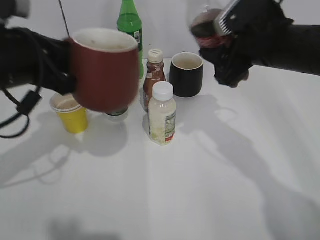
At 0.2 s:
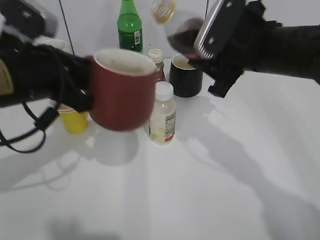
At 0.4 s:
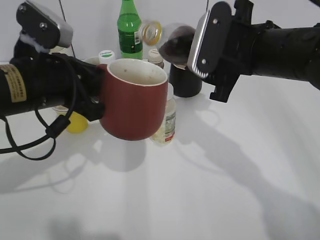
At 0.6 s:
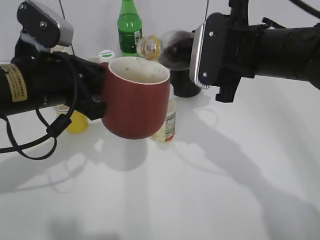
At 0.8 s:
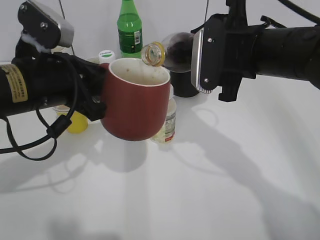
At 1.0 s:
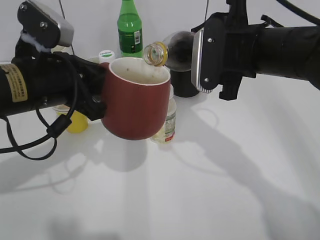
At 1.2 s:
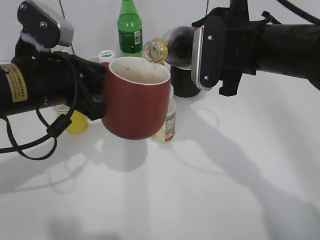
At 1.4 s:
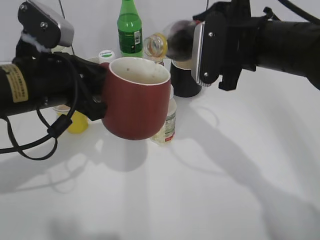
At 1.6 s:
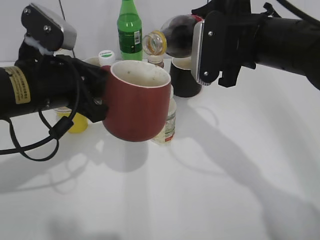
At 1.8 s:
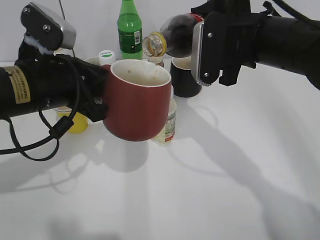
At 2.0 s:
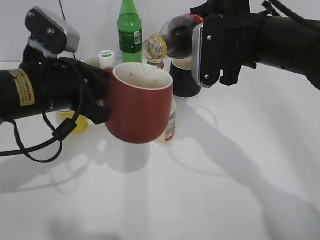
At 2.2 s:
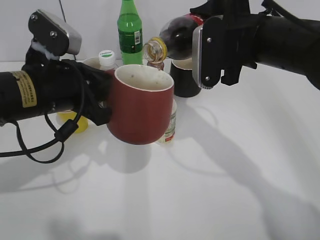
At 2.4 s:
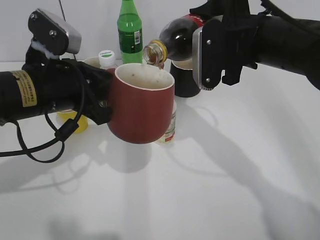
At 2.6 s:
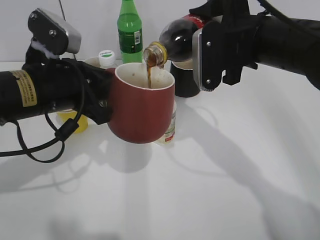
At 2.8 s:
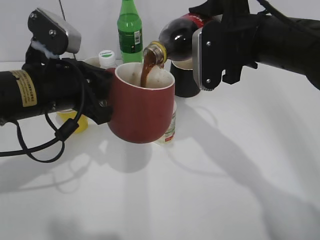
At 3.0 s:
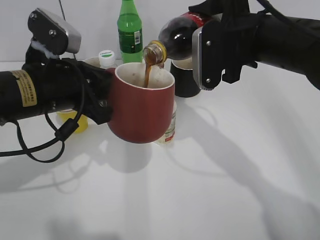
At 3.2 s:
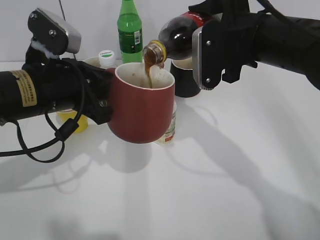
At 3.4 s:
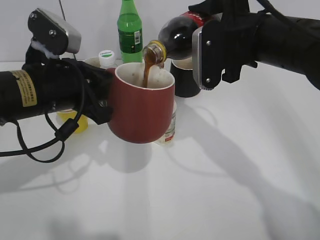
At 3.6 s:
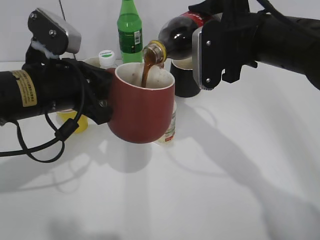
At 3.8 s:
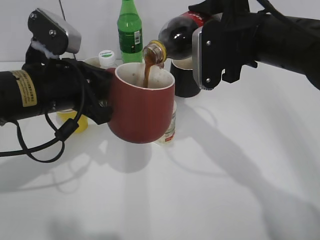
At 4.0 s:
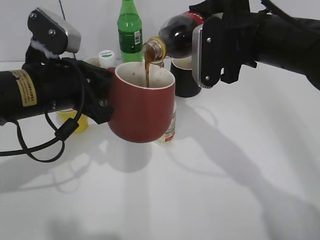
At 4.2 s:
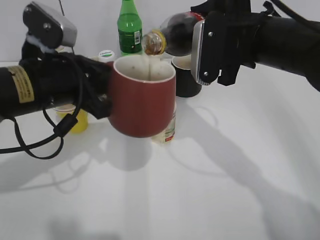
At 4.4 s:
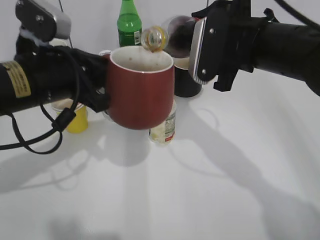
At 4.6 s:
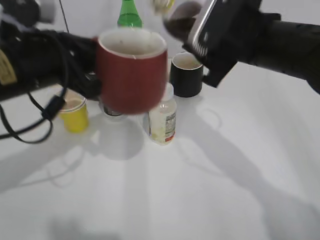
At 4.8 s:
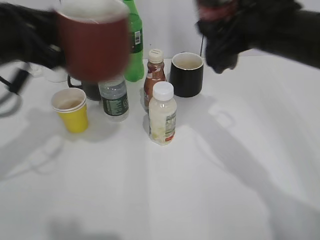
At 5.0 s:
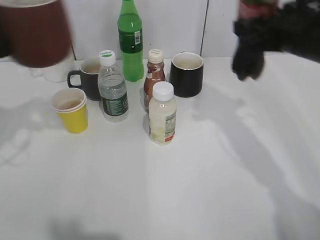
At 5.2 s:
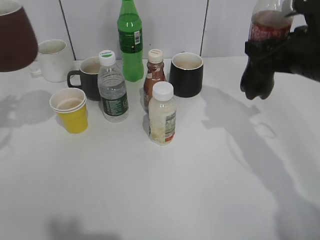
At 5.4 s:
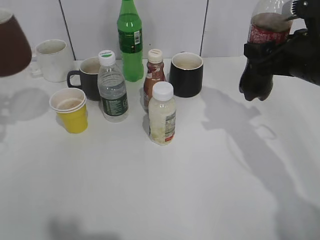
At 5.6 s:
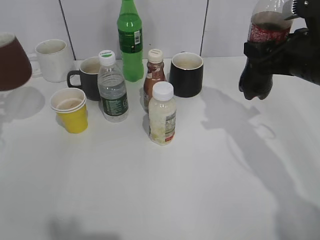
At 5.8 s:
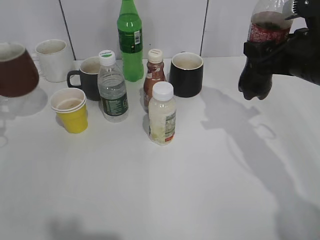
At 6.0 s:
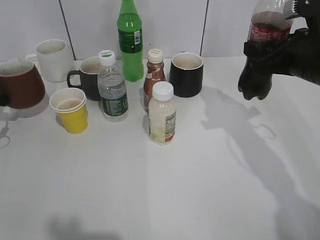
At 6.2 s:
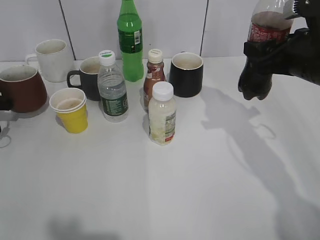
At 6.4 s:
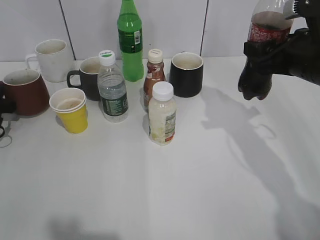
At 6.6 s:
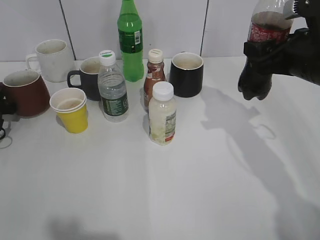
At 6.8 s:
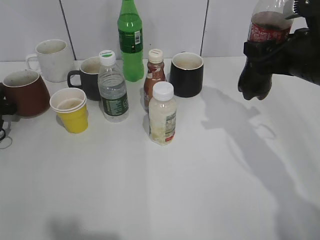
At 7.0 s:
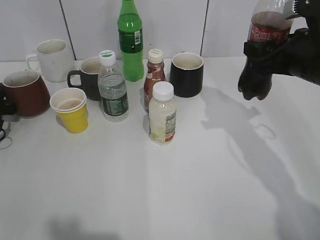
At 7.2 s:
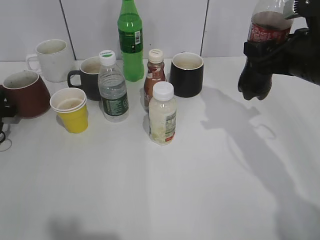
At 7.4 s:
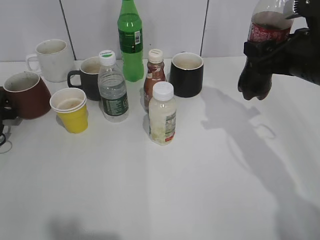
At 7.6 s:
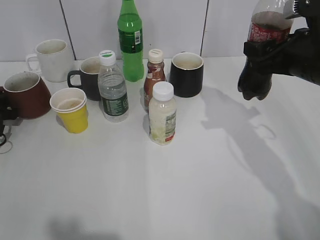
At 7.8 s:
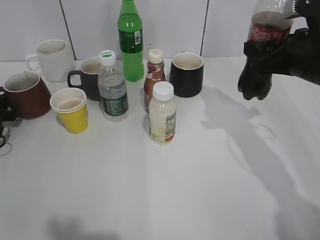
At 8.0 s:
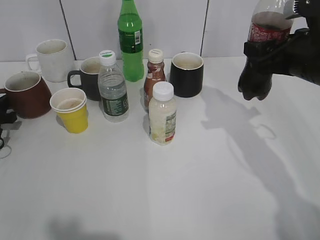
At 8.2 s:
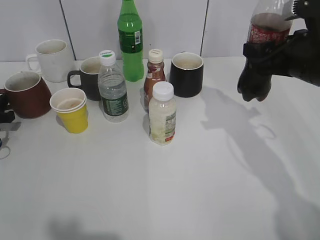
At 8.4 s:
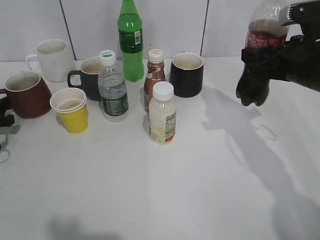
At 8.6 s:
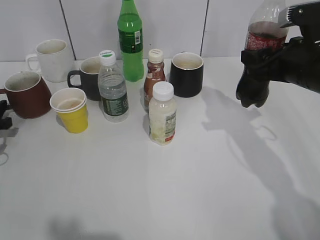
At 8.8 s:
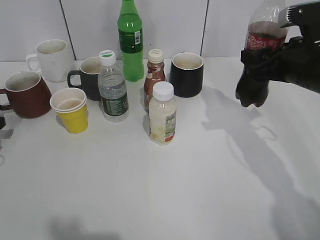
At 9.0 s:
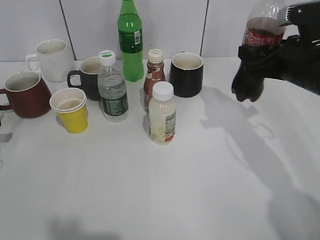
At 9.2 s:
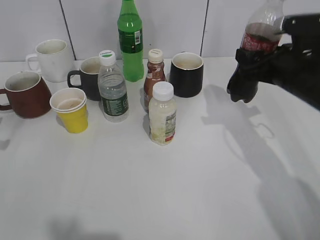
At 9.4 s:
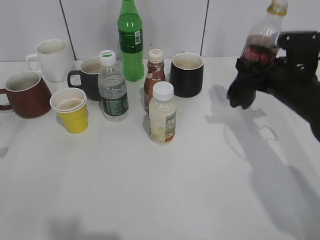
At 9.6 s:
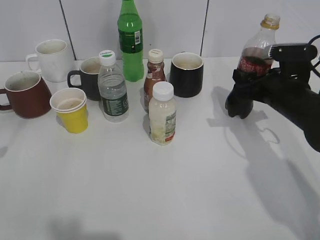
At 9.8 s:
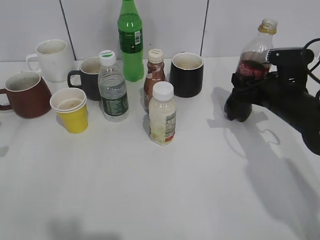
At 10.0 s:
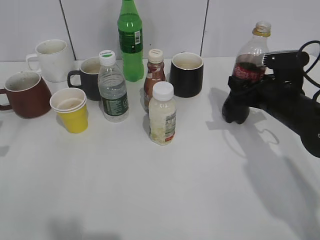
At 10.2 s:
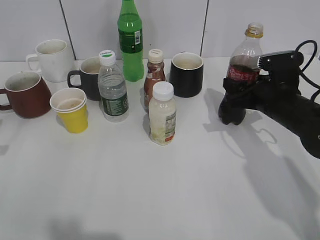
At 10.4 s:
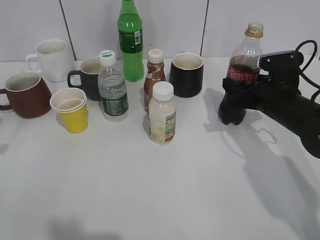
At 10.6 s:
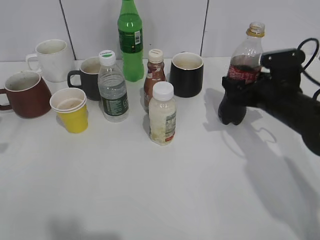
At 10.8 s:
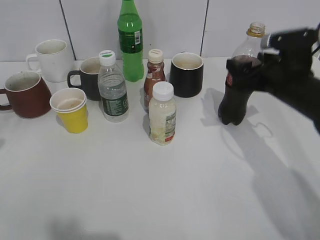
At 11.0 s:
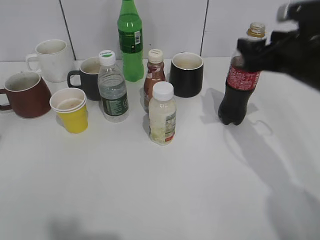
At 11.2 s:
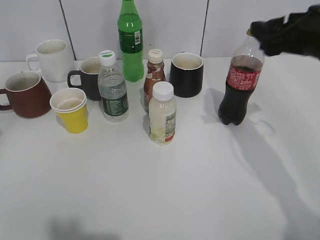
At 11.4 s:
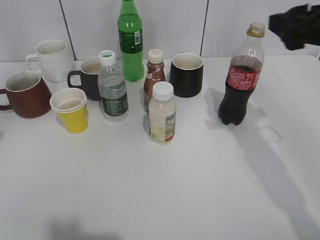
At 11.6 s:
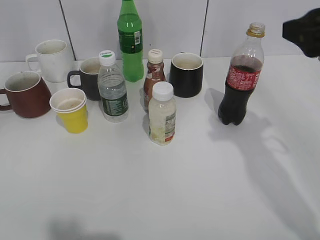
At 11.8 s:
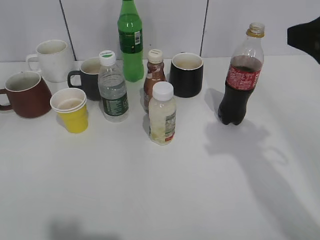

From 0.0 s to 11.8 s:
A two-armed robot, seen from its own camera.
Step, from 0.0 s to 4.6 s: Pour the cola from bottle to cup with right gripper.
Step, from 5.0 s to 11.0 s: Place the coffee bottle on the table with right gripper.
From 1.4 s to 4.4 s: The grippers move only a little.
From 4.4 s to 6.0 s: The right gripper heads to the right, covering approximately 10 cm; the left gripper shifts about 30 cm to the left, downward and forward.
From 6.0 s to 7.4 s: The grippers stay close to where they were, moving slightly.
From 7.4 s to 8.8 s: The left gripper moves backward, about 5 cm, and opens its fingers.
From 8.8 s to 10.4 s: The left gripper shifts some 15 cm upward and backward. The right gripper heads downward, covering approximately 10 cm.
From 10.4 s to 11.8 s: The right gripper heads upward and backward, covering approximately 25 cm, and opens.

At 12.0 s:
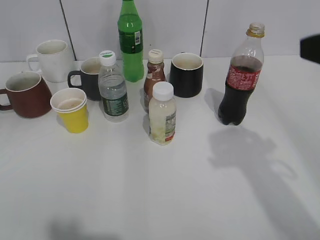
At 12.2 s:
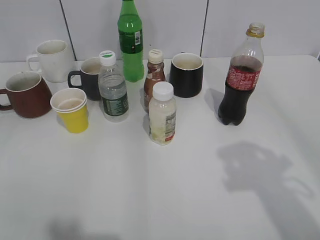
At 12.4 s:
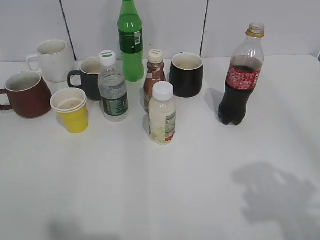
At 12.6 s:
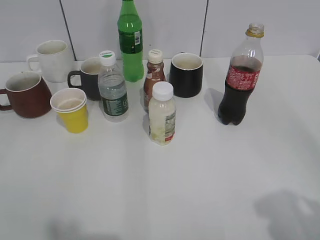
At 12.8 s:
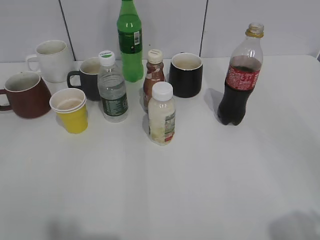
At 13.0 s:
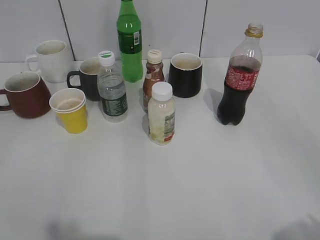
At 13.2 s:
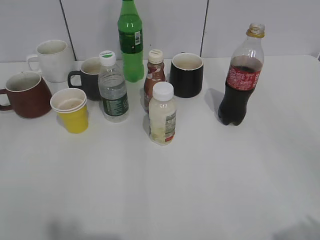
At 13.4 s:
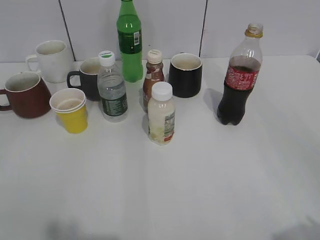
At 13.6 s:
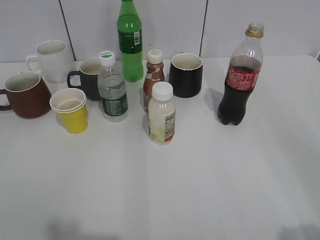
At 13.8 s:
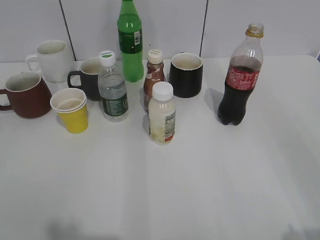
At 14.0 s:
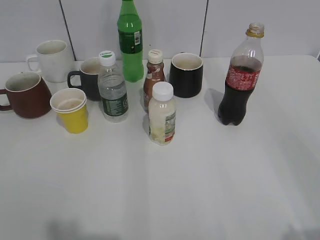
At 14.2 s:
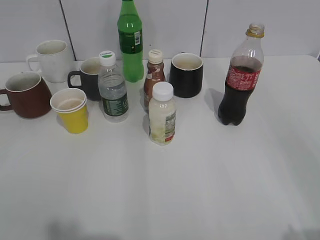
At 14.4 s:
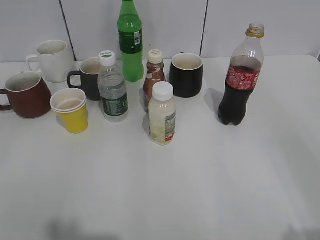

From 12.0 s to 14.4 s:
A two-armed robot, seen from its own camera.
From 12.0 s to 13.2 s: The right gripper travels backward by roughly 15 cm.

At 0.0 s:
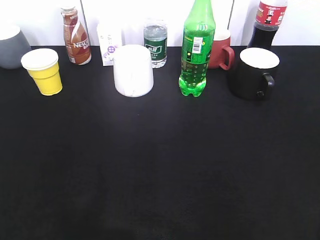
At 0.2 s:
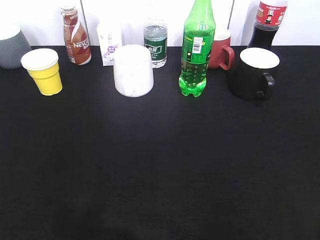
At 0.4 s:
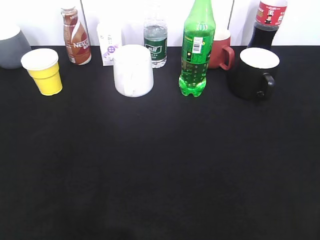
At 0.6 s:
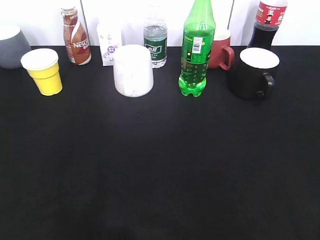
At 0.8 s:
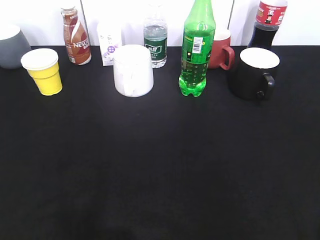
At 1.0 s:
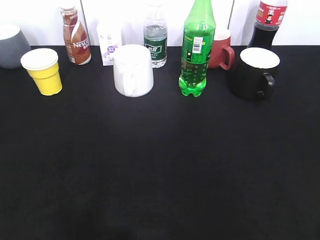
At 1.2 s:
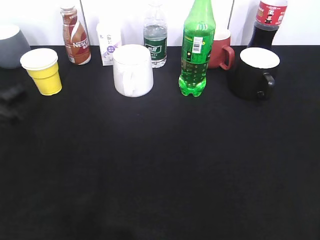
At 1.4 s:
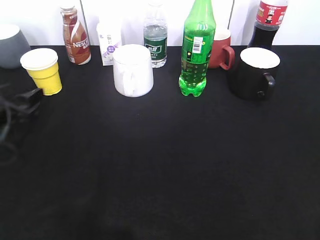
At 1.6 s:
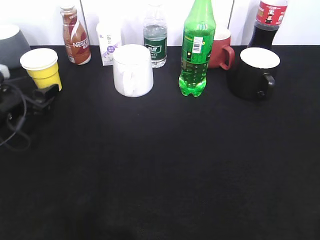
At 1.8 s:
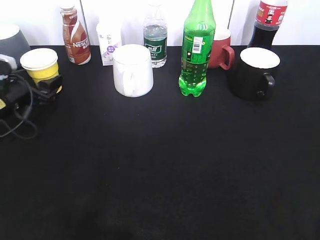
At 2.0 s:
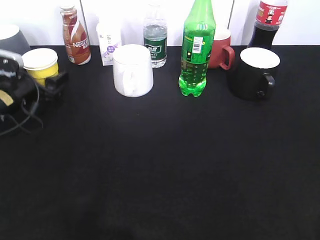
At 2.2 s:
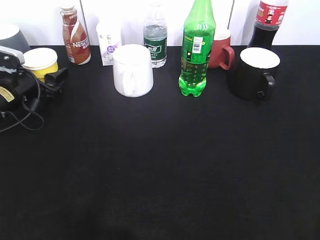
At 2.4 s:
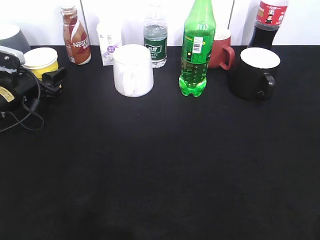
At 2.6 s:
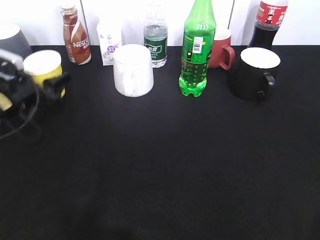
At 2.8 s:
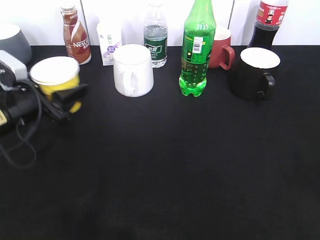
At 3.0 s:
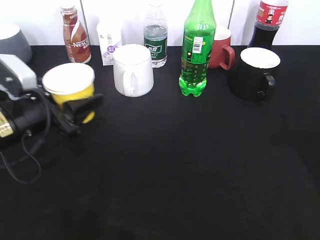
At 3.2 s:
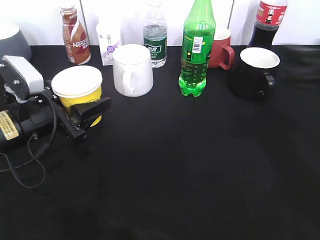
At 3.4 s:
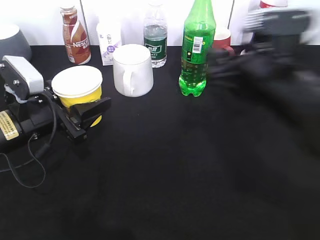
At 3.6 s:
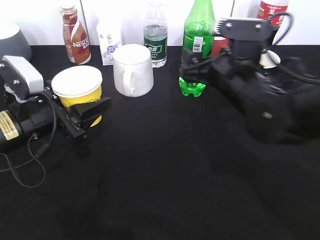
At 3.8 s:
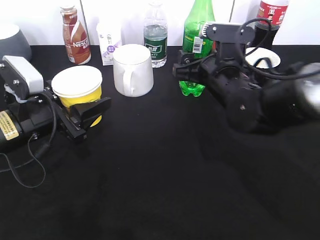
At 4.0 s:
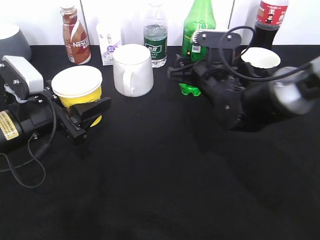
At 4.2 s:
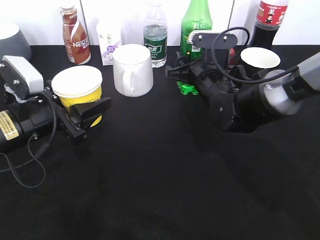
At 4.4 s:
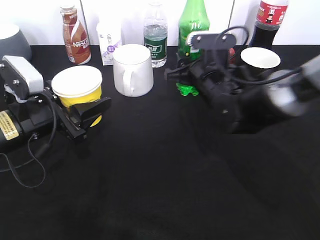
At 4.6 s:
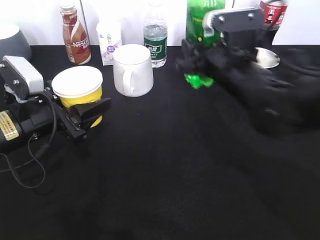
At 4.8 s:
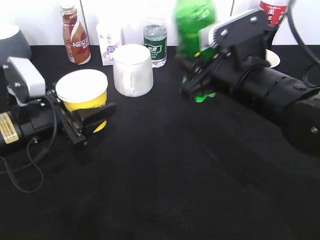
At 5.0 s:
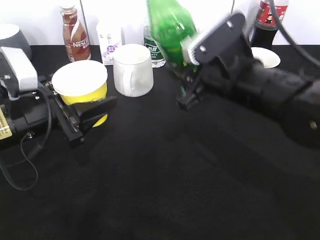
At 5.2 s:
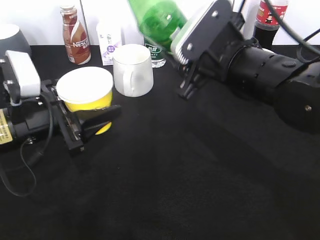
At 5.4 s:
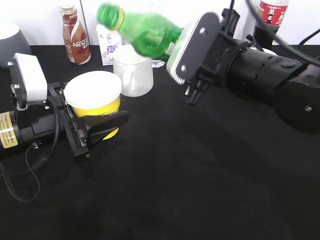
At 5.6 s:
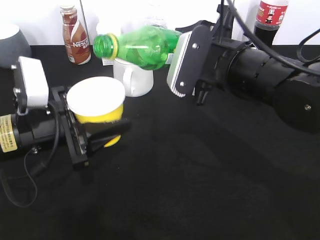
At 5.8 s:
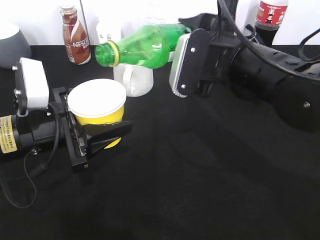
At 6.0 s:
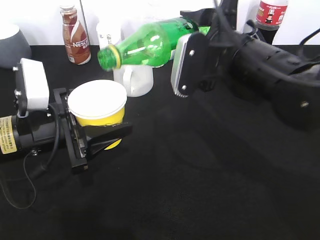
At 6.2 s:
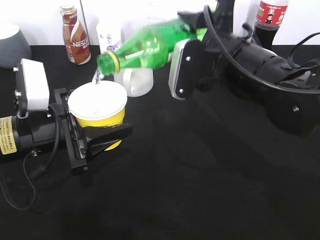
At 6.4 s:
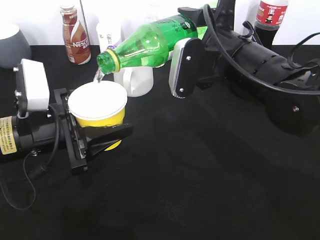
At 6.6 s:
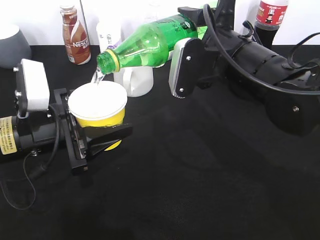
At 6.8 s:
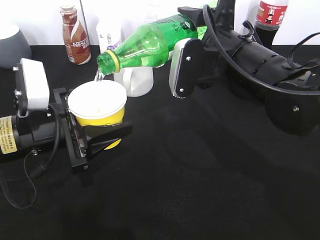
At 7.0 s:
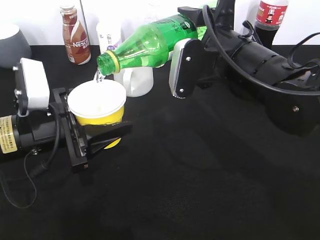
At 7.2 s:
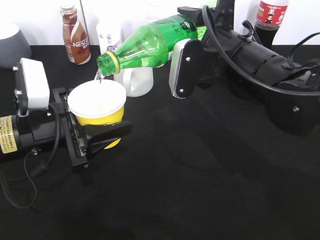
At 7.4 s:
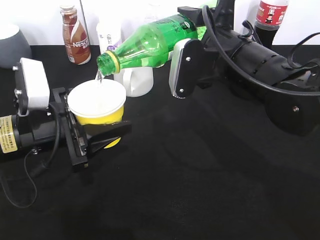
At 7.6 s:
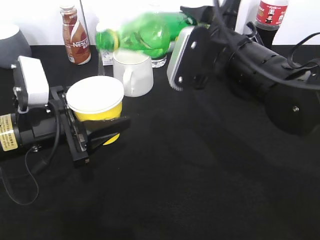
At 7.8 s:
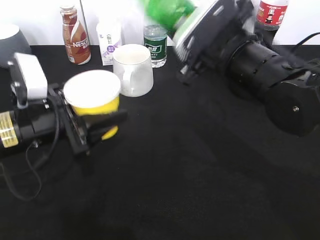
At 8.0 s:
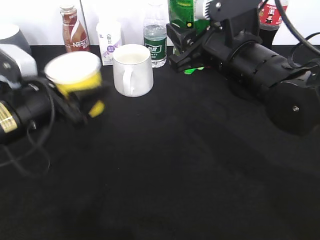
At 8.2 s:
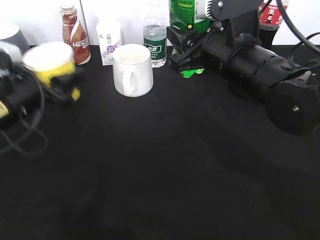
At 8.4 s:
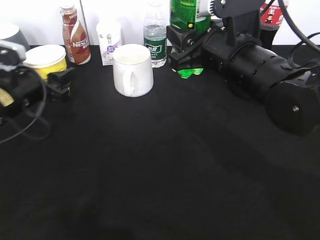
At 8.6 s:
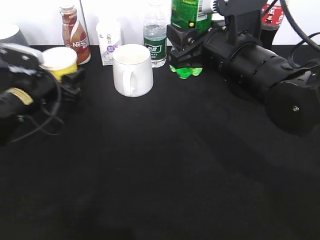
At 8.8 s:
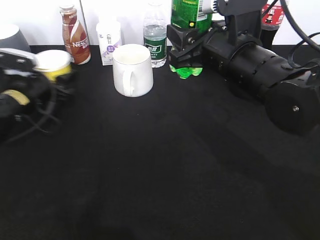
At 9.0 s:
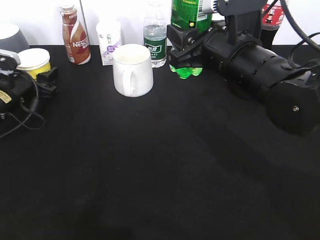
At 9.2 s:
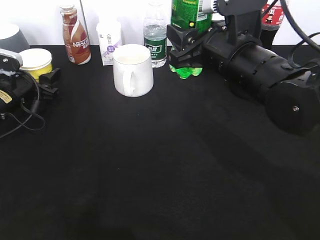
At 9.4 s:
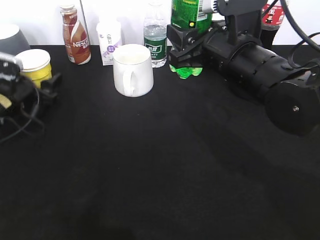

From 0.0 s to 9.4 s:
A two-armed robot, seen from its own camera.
Step, from 0.0 s to 2.4 s: Grasp the yellow paper cup with left gripper.
Step, from 2.6 s to 3.0 s: Lift the yellow paper cup with left gripper.
Step, from 3.2 s to 4.2 s: Grasp the bottle with sprite with right gripper.
Step, from 4.4 s to 7.6 s: Pour the sprite from bottle to cup with right gripper.
From 0.0 s to 1.6 s: The left gripper is displaced forward and downward by approximately 40 cm.
From 1.6 s to 3.2 s: The right gripper goes roughly 25 cm forward. Meanwhile the left gripper is displaced to the right and backward by approximately 10 cm, and closes.
From 3.2 s to 4.8 s: The right gripper travels to the left by about 10 cm, and closes.
From 7.8 s to 9.4 s: The left gripper travels forward, to the left and downward by some 20 cm.
